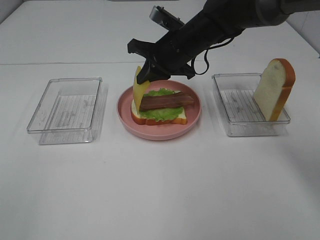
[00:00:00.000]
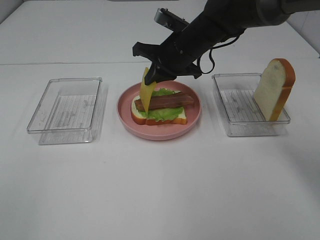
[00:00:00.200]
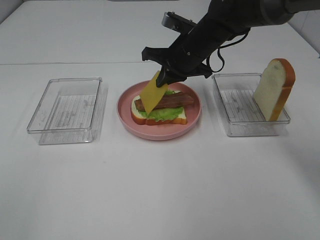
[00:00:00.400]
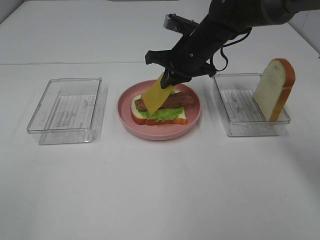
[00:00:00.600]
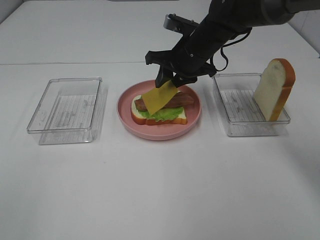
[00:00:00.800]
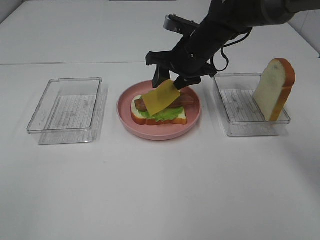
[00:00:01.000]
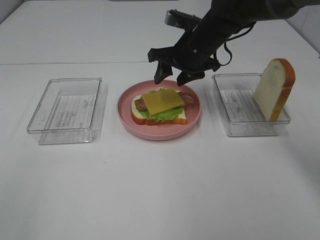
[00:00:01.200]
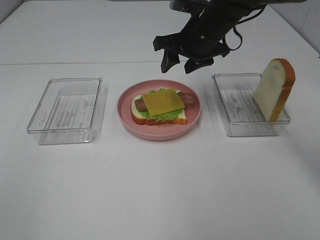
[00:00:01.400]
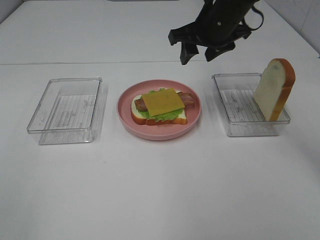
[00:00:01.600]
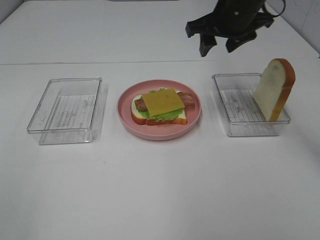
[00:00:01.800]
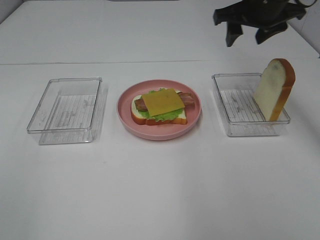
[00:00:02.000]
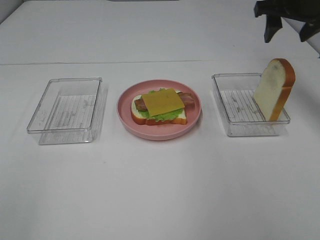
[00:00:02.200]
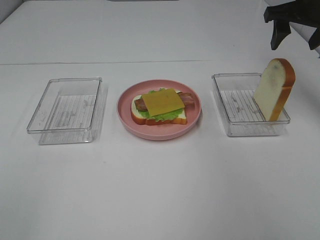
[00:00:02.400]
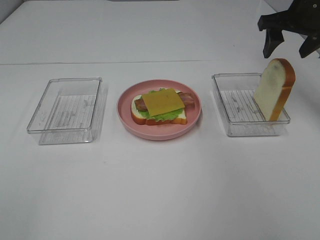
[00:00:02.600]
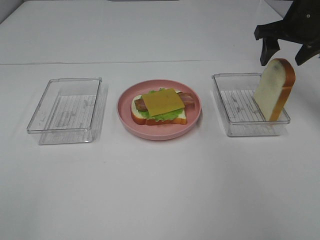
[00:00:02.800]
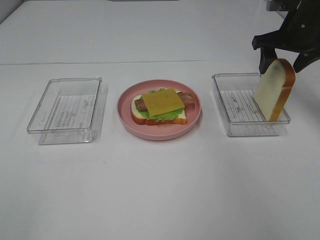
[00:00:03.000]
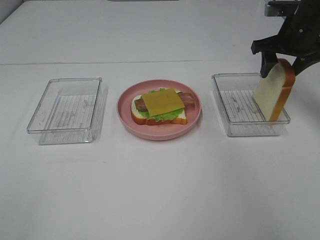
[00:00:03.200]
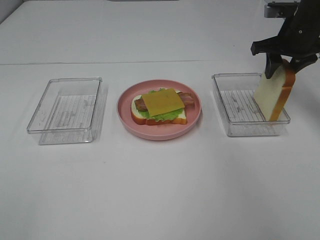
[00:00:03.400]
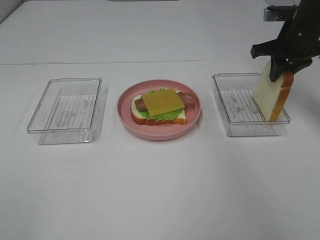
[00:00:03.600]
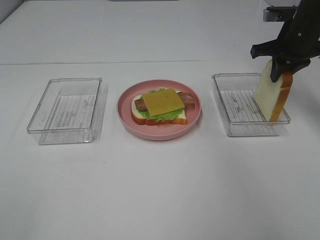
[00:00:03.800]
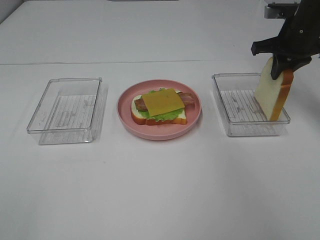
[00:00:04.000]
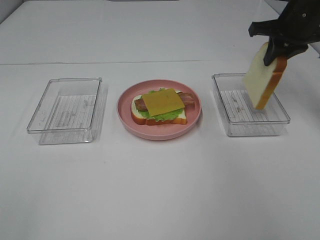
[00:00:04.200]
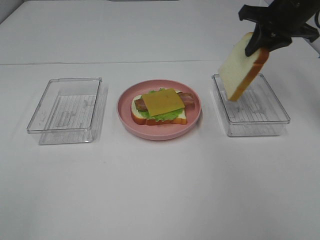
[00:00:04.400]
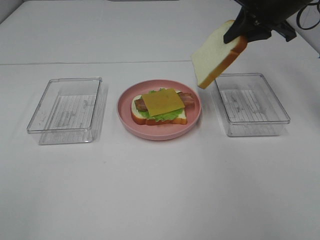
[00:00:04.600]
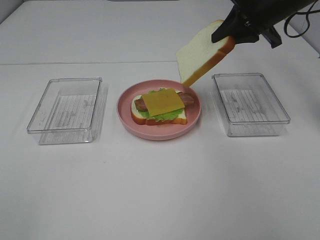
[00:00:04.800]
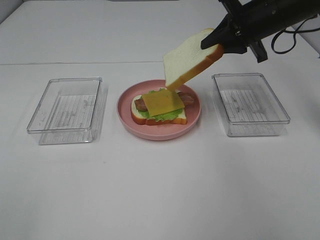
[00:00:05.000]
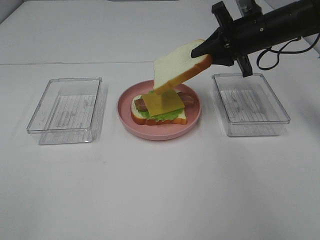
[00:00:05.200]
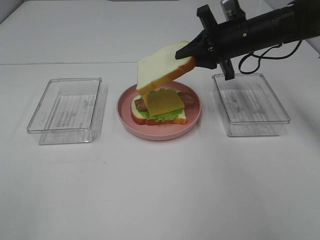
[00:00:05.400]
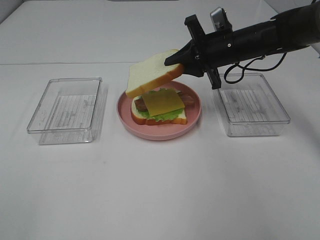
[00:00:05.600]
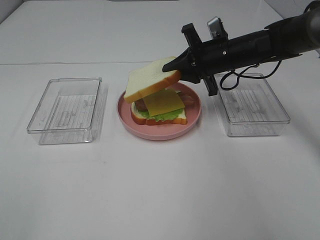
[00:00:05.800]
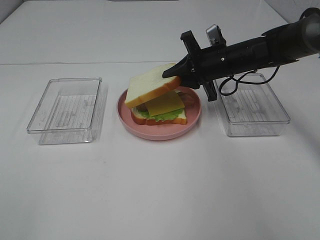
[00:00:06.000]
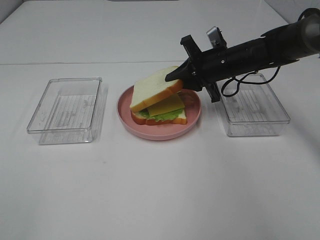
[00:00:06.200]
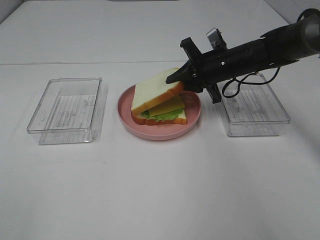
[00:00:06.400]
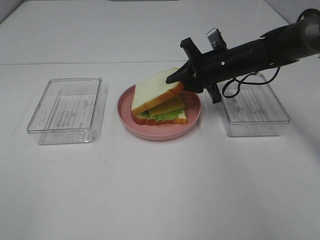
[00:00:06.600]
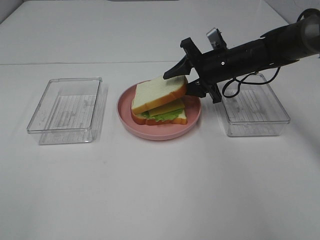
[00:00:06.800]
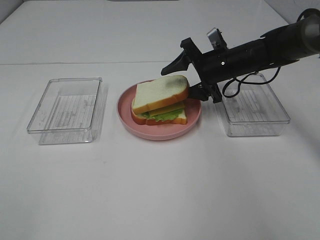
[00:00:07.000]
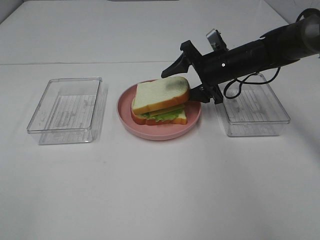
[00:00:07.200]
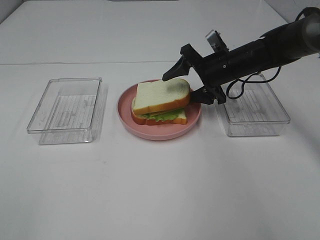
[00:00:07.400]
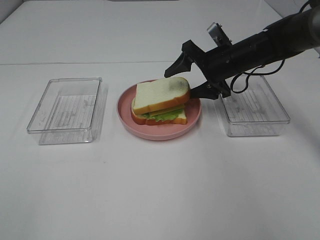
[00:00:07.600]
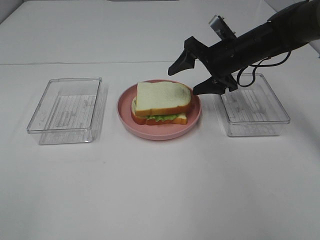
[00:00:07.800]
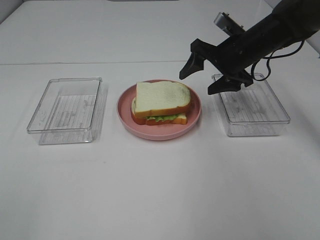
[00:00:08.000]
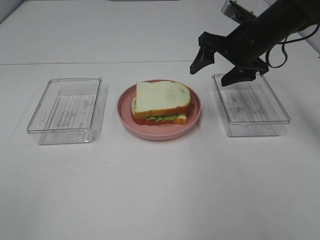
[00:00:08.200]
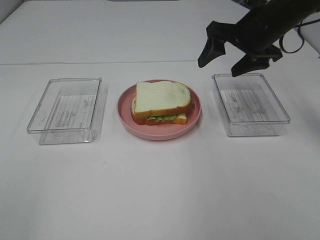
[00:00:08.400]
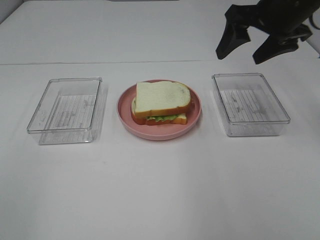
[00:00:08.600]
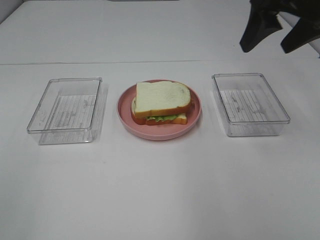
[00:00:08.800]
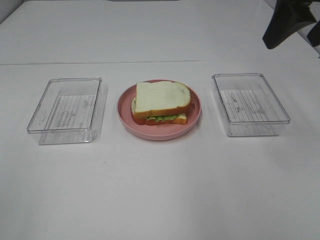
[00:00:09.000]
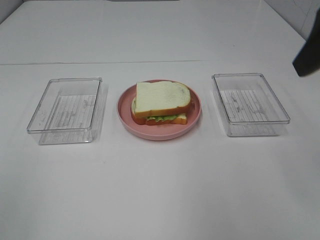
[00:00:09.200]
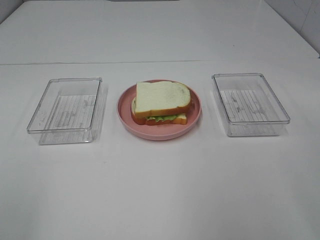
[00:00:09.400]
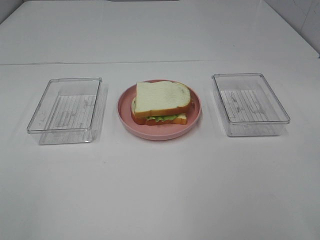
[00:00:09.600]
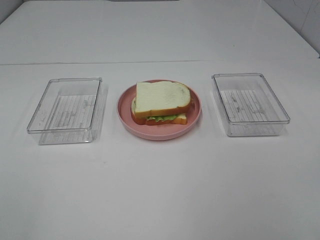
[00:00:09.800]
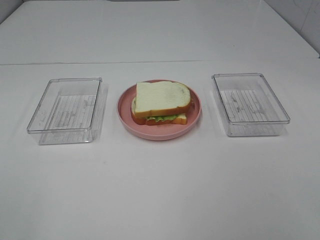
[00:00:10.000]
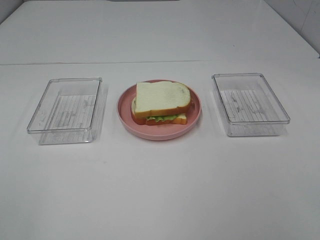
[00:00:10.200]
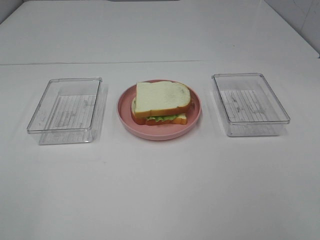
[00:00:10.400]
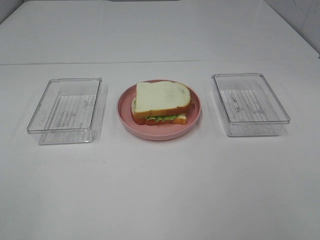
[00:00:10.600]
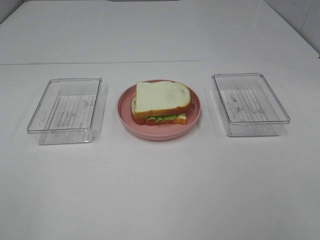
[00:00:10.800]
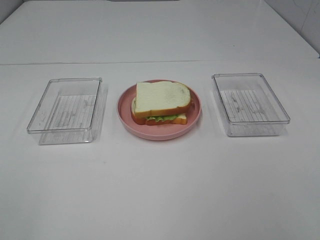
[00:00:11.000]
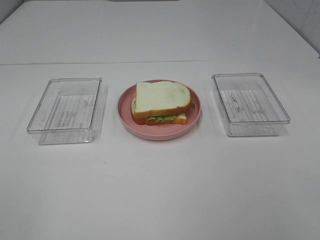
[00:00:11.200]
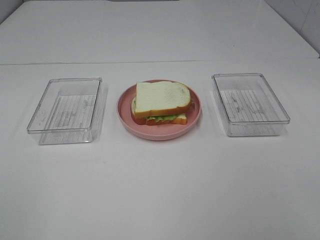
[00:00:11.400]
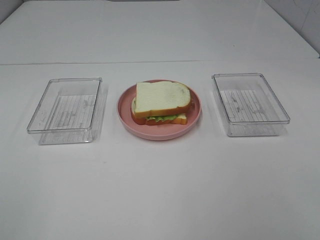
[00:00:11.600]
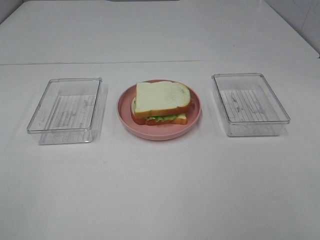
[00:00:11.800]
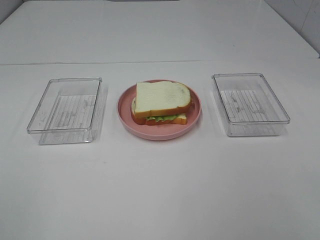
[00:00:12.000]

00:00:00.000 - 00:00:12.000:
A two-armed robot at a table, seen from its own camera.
Task of the whole recording: Make sandwiches.
Step, 00:00:01.800 - 00:00:03.600: Right hand:grab the bread slice.
Step, 00:00:03.800 - 00:00:08.200: Right hand:place the bread slice on the cheese slice.
00:00:00.000 - 00:00:01.600: The right gripper goes roughly 10 cm upward and to the right, and opens up.
00:00:01.600 - 00:00:03.000: The right gripper goes some 15 cm to the right.
00:00:03.000 - 00:00:04.400: The right gripper closes its fingers.
00:00:04.400 - 00:00:06.000: The right gripper goes about 15 cm downward and to the left.
00:00:06.000 - 00:00:07.600: The right gripper opens up.
00:00:07.600 - 00:00:09.000: The right gripper goes some 25 cm upward and backward.
00:00:09.000 - 00:00:10.400: The right gripper travels backward by approximately 25 cm.

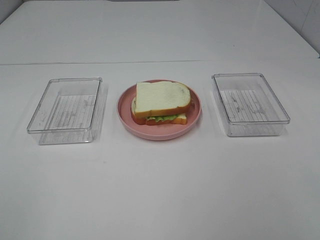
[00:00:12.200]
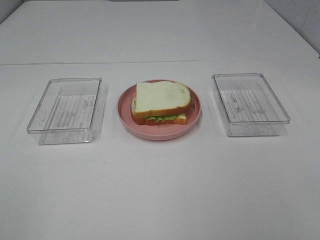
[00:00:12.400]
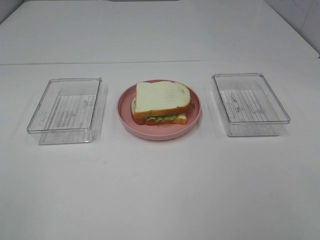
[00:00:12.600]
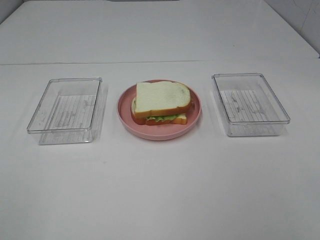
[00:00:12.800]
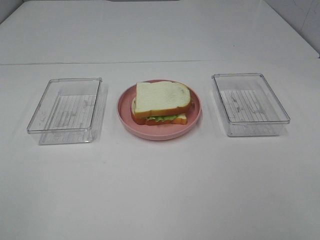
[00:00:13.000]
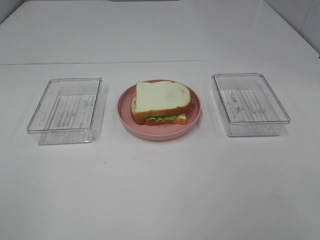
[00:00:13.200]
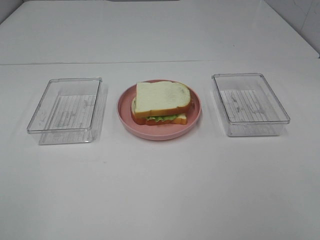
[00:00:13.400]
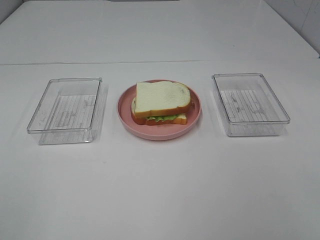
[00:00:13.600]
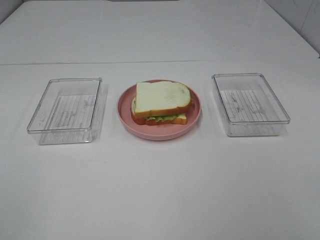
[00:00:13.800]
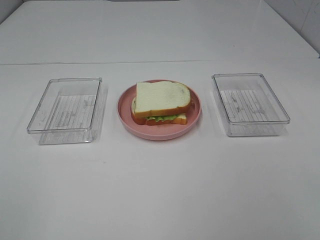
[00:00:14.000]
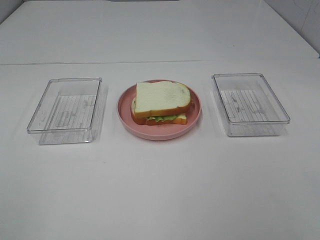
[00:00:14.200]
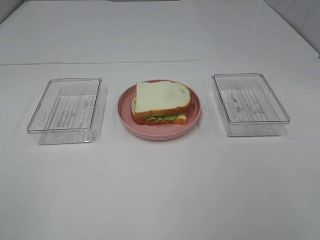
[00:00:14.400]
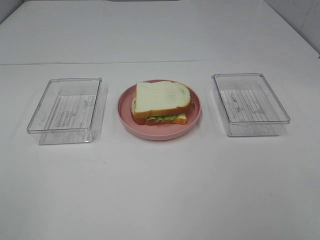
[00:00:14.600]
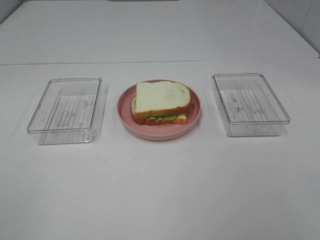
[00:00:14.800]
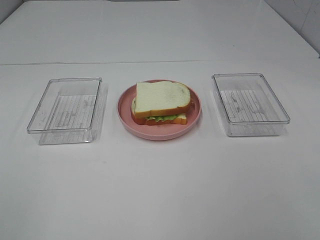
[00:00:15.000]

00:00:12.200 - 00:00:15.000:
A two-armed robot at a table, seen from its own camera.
Task of the whole recording: Make sandwiches.
00:00:12.200 - 00:00:15.000: Both grippers stay about where they are.
